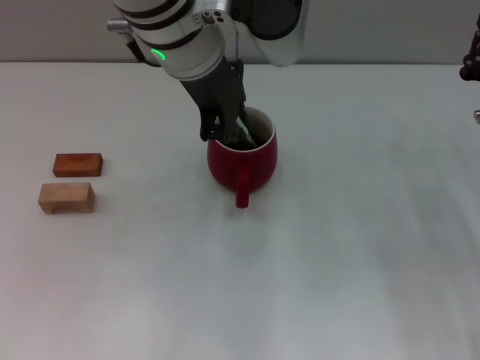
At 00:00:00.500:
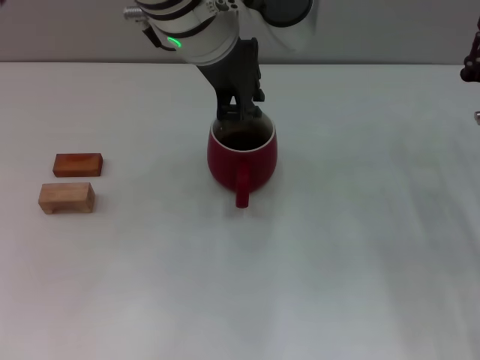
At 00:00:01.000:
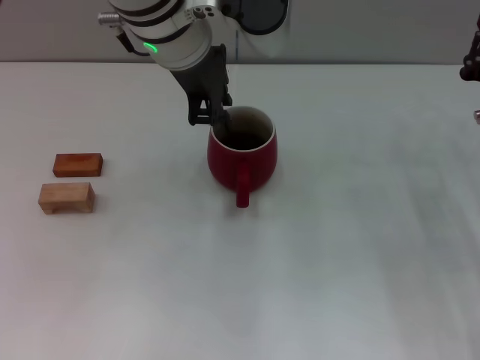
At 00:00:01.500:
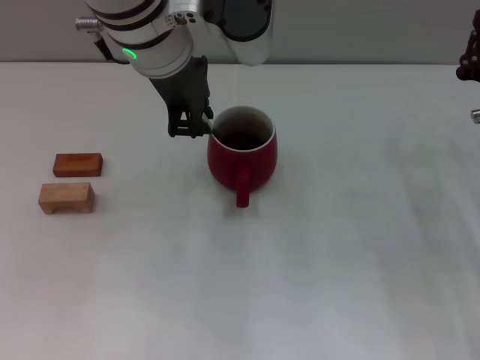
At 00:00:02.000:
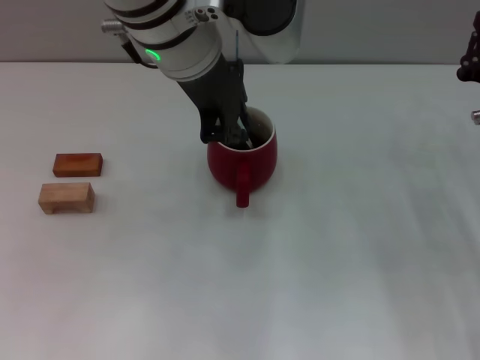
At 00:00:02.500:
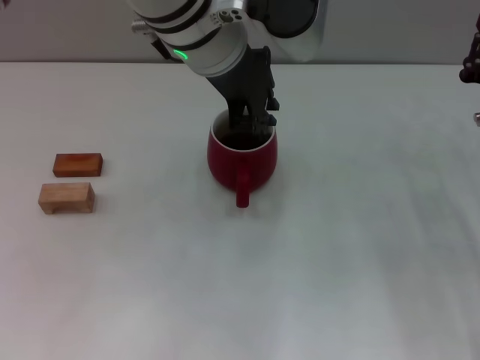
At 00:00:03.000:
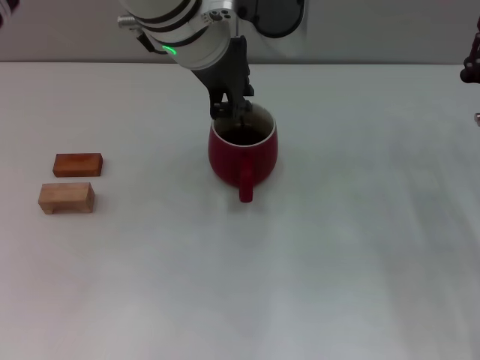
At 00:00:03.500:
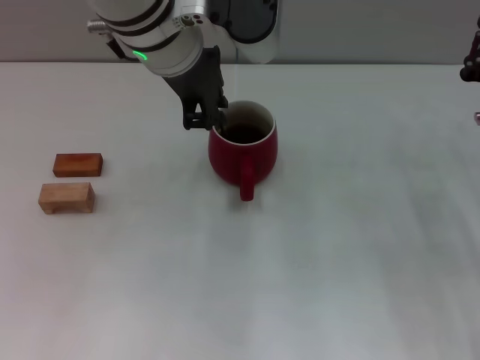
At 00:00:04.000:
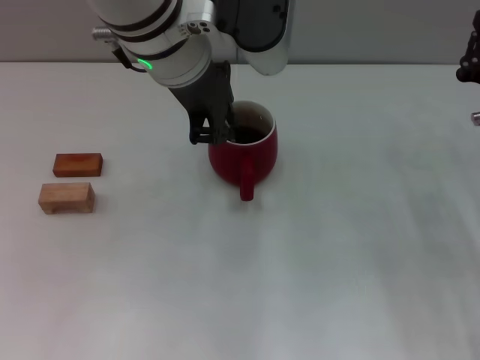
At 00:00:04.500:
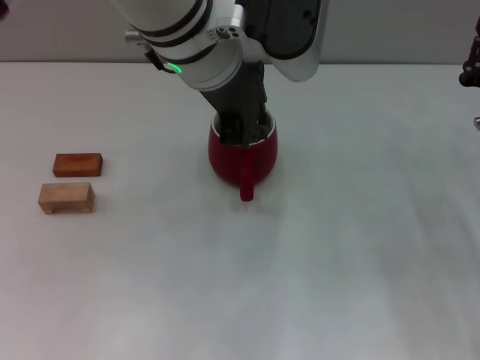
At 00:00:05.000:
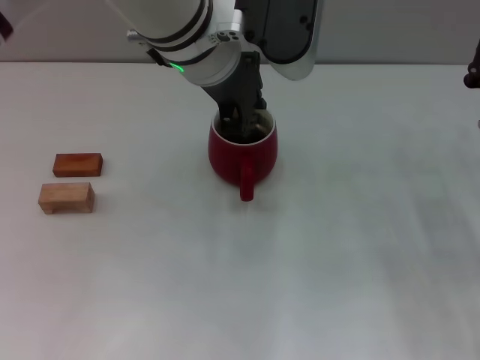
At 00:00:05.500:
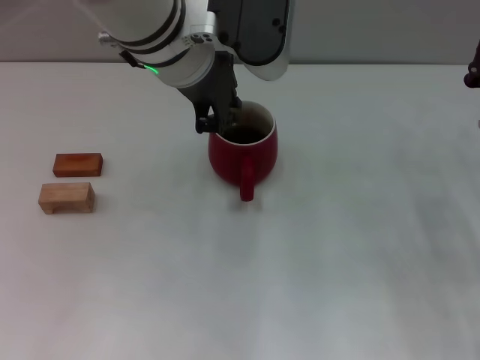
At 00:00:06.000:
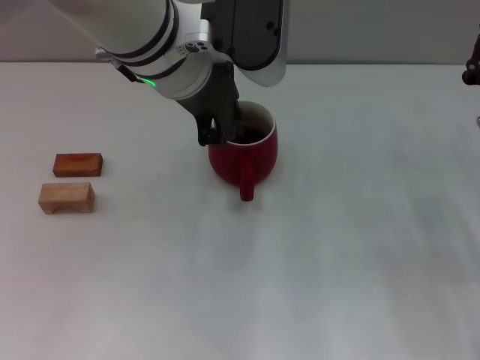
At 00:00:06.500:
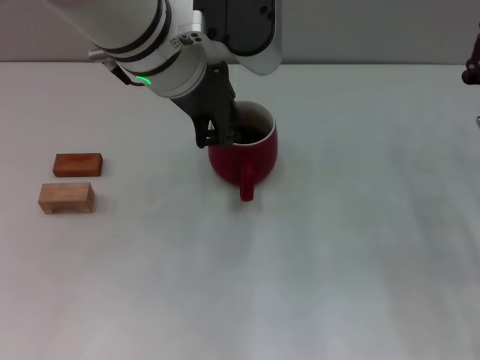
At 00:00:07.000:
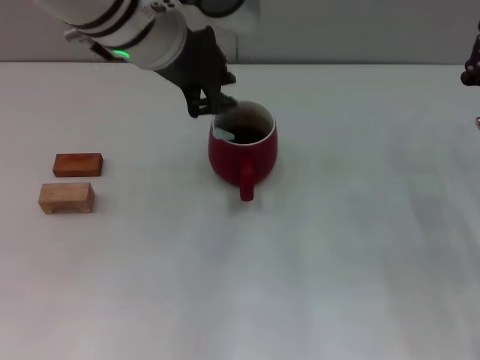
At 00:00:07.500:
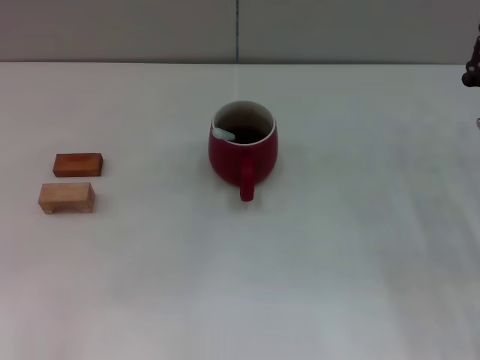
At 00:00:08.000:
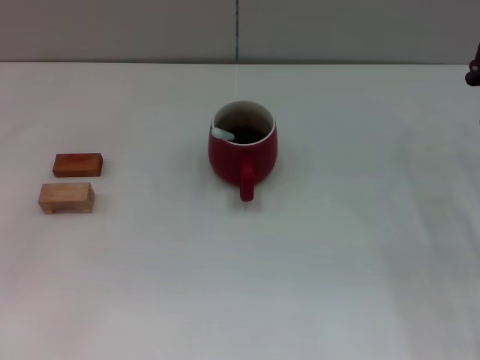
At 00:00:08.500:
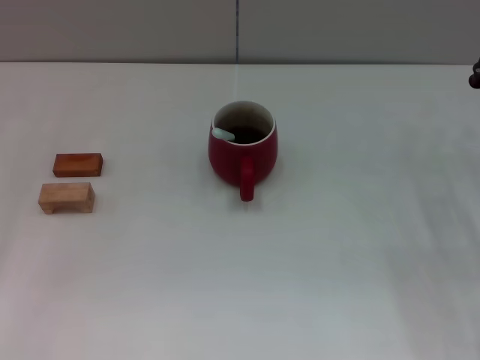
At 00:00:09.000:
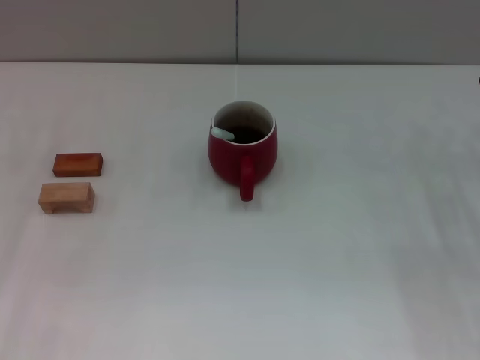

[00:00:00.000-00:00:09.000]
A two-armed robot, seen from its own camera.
Task of the whole recording: Move the red cup to the center, lift the blue spoon, stir it three times in the cup, and put the spoon into the cup.
Step, 00:00:00.000 to 00:00:06.500: Stir the coffee in the cup with the left gripper.
00:00:00.000 to 00:00:07.000: The grippers move only a little.
00:00:07.000 to 00:00:09.000: The left gripper is displaced to the left and downward by about 30 cm.
